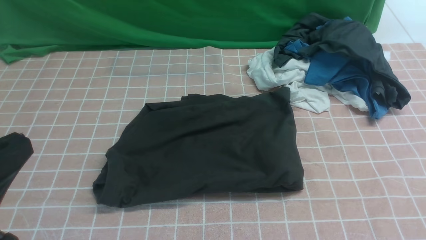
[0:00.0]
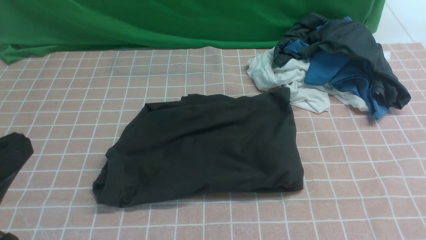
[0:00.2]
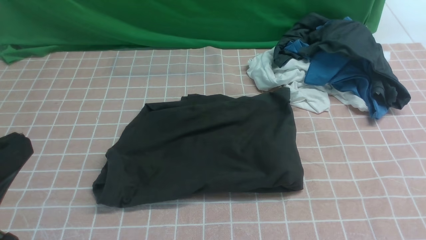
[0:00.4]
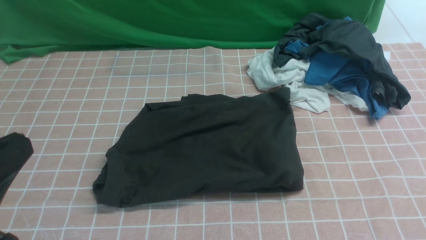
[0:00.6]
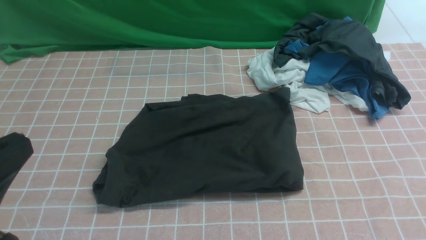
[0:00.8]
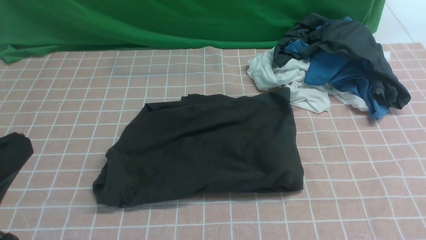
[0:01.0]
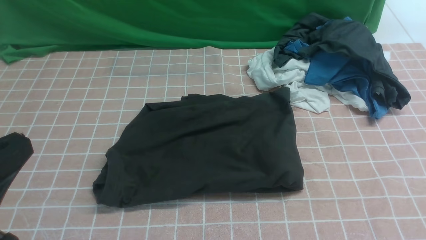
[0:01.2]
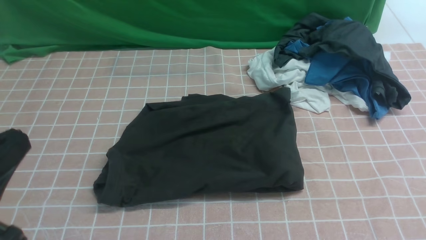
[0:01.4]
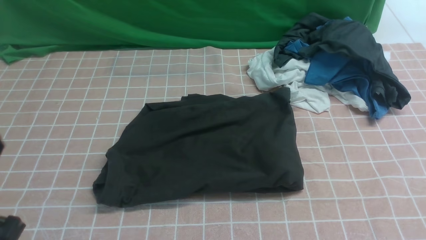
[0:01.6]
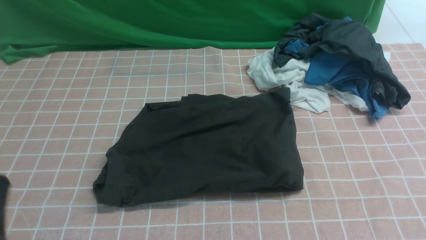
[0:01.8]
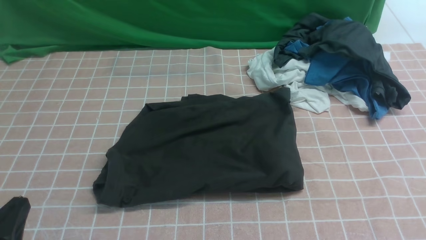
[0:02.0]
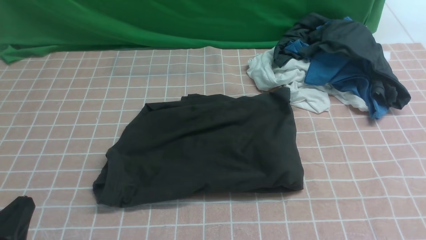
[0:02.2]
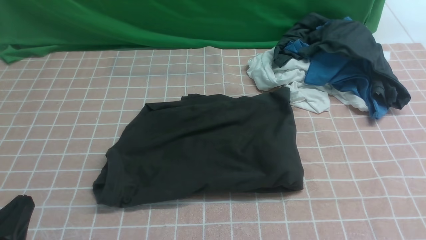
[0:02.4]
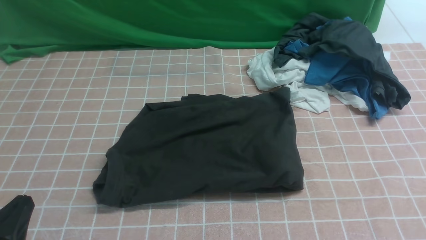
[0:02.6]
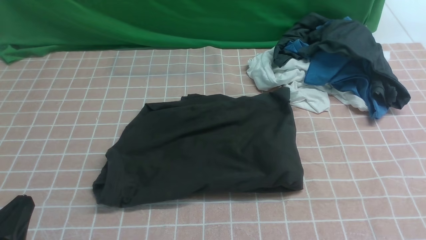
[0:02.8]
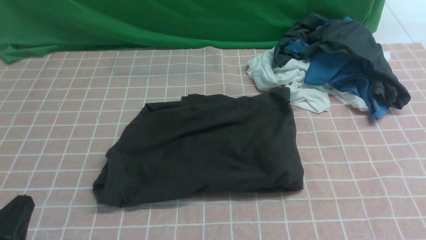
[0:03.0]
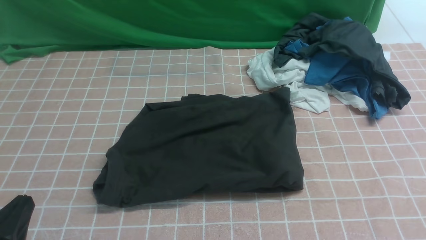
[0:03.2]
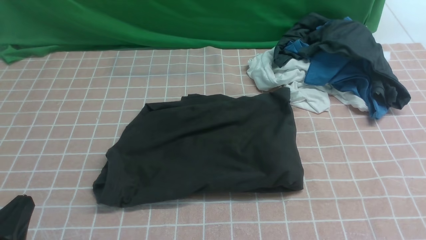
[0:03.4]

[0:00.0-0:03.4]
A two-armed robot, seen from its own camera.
0:00.0 to 0:01.6: The left gripper moves downward, about 5 cm.
0:01.6 to 0:03.4: The left gripper is displaced downward by about 10 cm.
